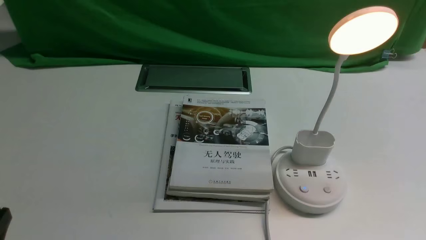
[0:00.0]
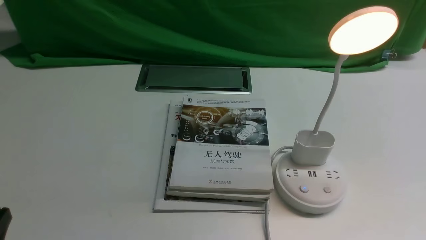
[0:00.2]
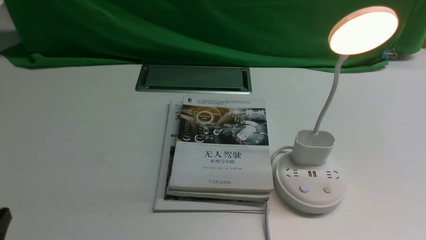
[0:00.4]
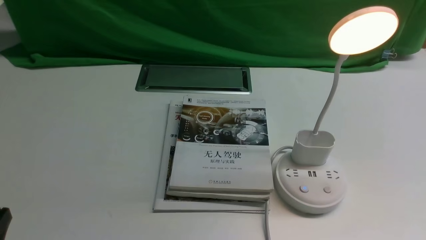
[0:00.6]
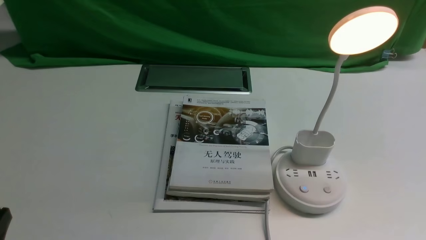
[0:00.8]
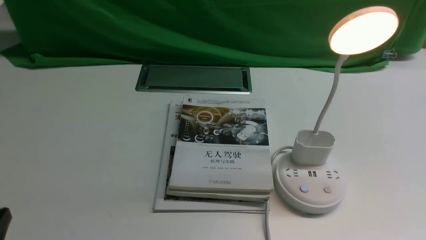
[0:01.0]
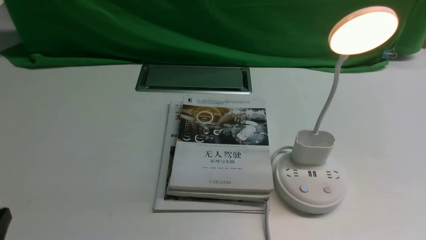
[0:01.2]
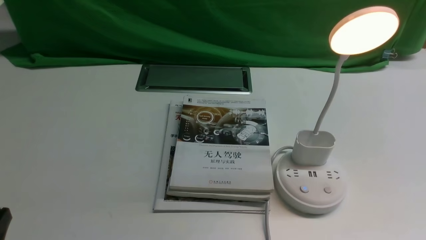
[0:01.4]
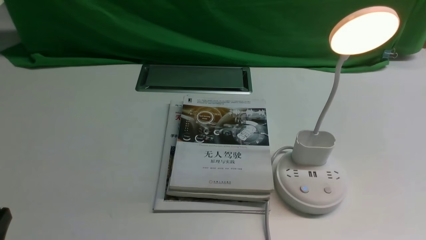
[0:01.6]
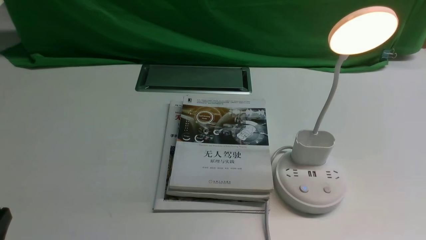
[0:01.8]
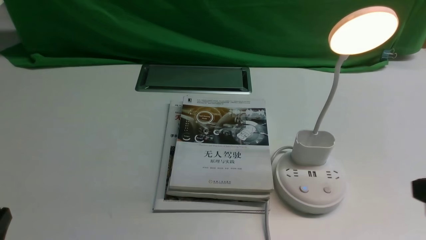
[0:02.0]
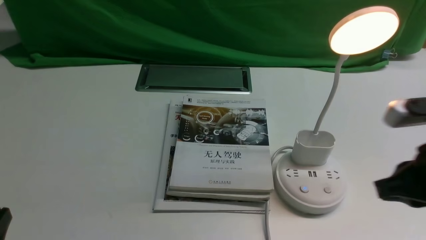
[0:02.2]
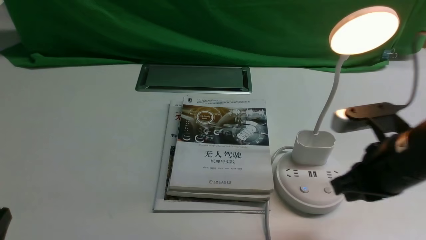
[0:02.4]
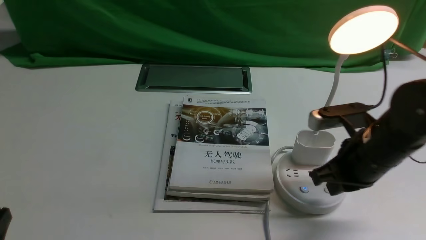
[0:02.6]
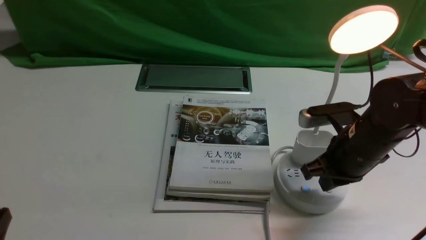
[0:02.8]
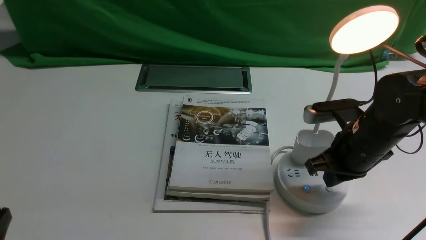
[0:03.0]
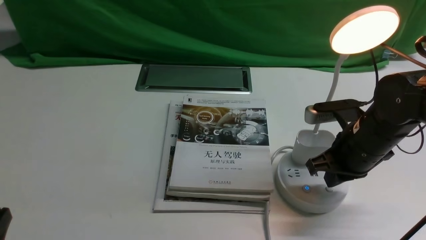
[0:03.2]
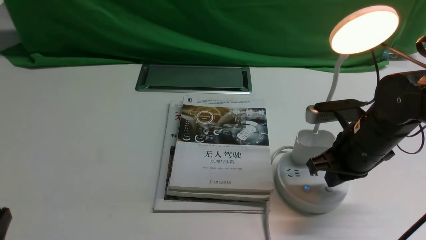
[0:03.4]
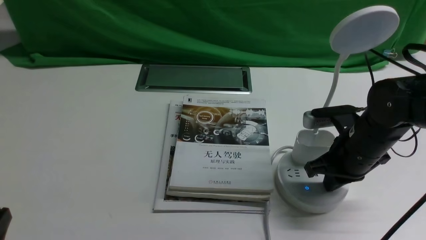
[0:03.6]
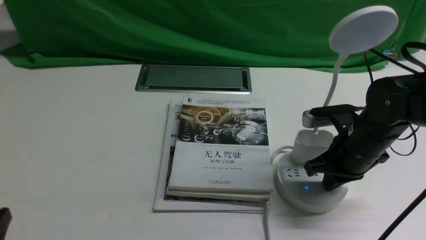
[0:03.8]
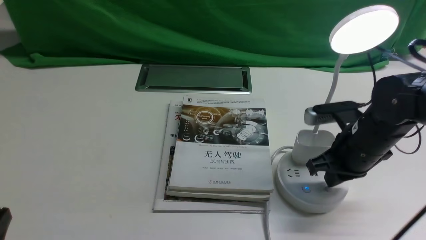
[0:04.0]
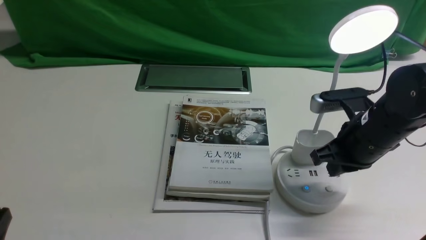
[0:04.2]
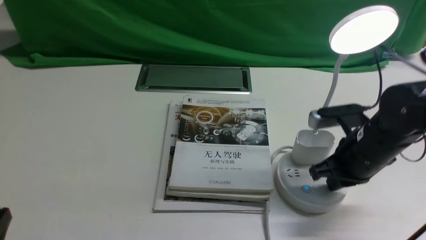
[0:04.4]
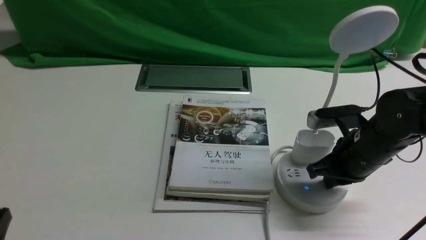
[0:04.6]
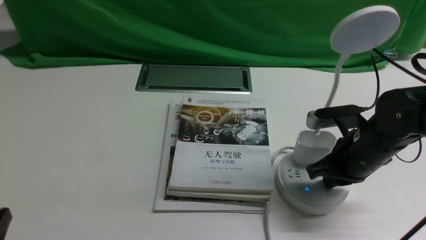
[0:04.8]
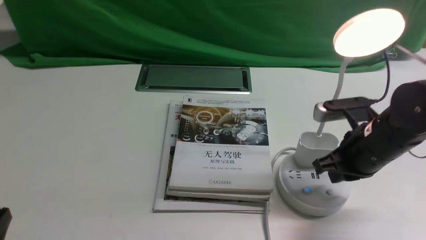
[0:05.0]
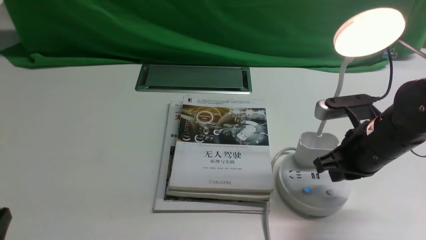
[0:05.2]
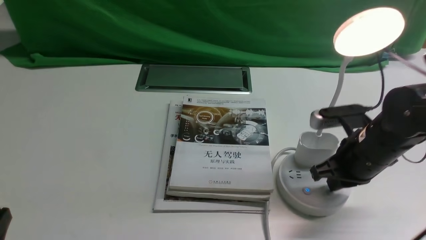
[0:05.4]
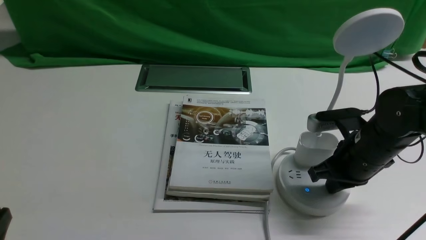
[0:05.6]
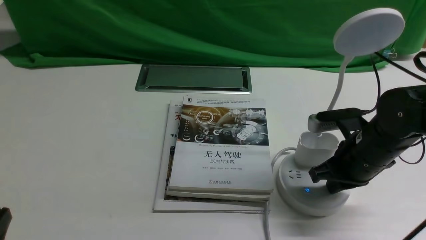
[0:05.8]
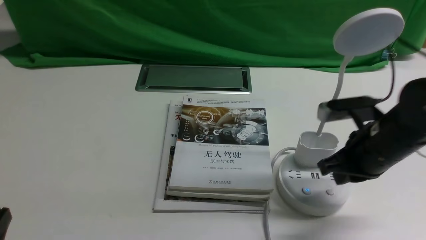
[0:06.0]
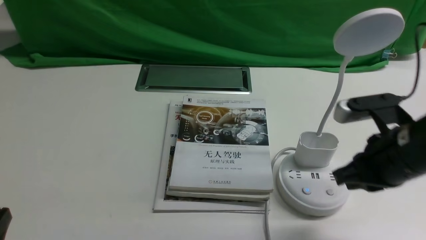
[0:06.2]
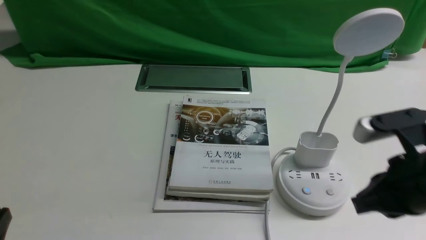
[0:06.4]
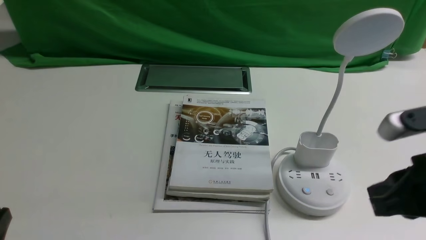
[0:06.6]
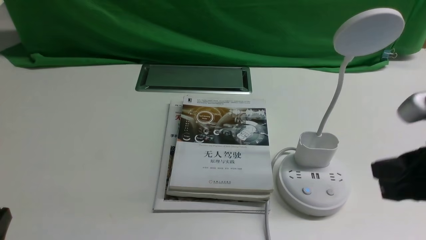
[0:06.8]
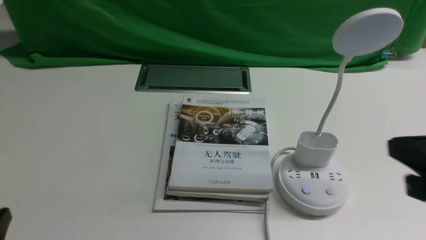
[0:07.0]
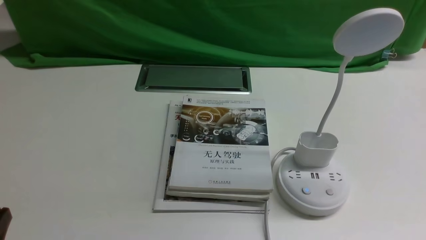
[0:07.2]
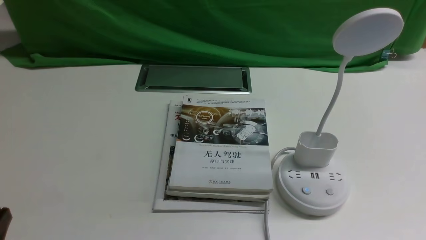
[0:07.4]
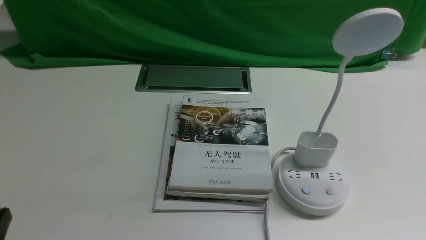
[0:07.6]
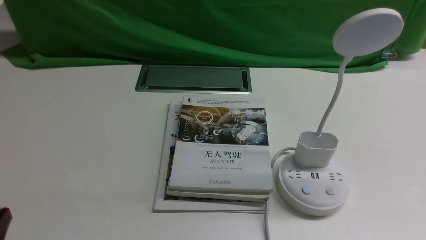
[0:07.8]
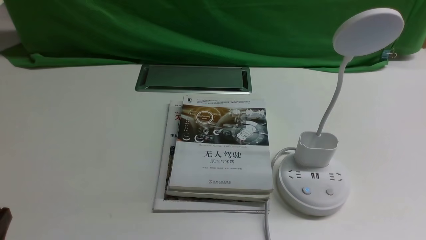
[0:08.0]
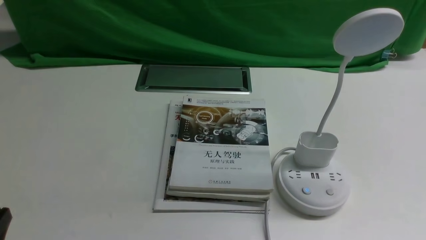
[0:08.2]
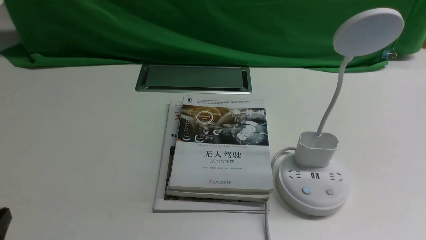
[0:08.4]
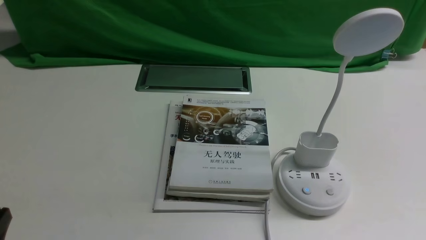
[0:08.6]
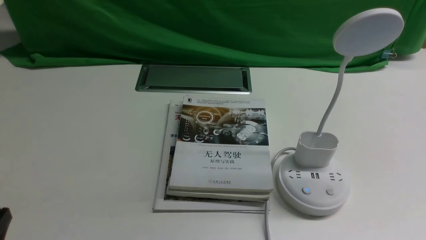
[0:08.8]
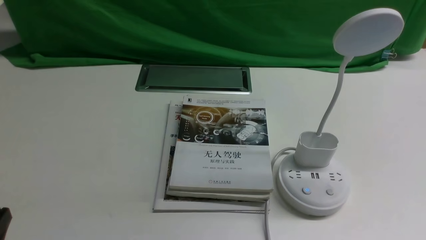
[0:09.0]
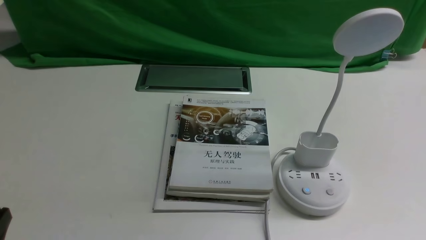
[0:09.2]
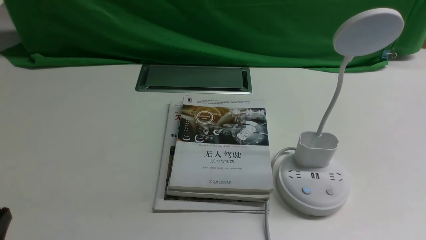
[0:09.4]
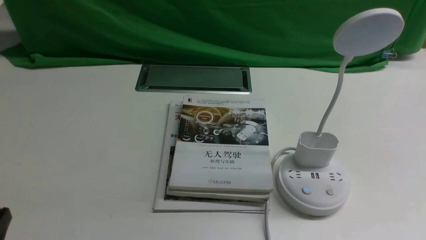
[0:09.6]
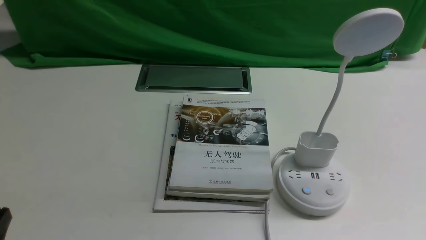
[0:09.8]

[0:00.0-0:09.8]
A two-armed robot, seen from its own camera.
Task of the whole recording: turn off the desk lamp on the white desktop by hand.
Step, 0:00.0 to 0:06.0: use the right arm to press the button switch on the lamp holder.
0:01.4 to 0:02.8: The right gripper goes about 25 cm forward and to the left, and closes its fingers.
0:02.8 to 0:05.6: The grippers move only a little.
0:05.6 to 0:07.0: The right gripper shifts approximately 20 cm backward and upward.
0:07.0 to 0:08.4: The right gripper travels downward, backward and to the right by some 15 cm.
0:08.4 to 0:09.8: Both grippers stay about where they are.

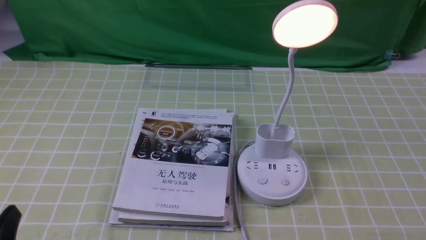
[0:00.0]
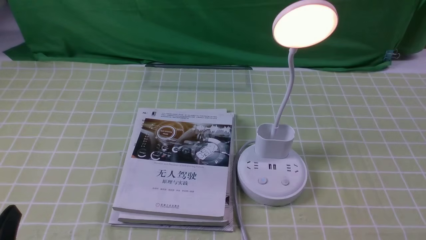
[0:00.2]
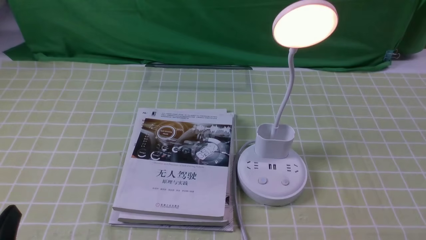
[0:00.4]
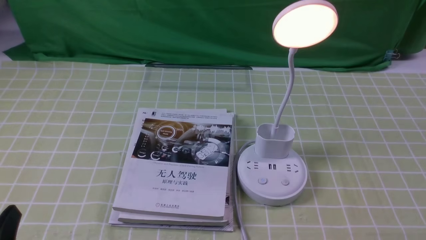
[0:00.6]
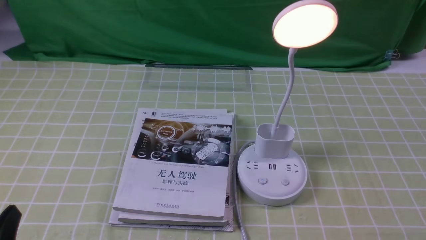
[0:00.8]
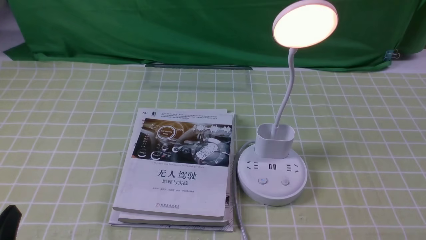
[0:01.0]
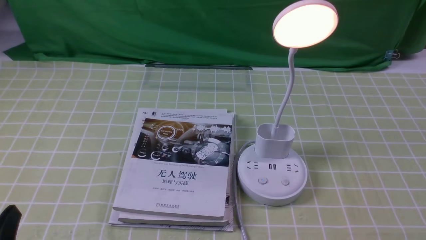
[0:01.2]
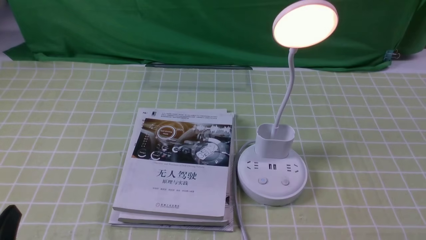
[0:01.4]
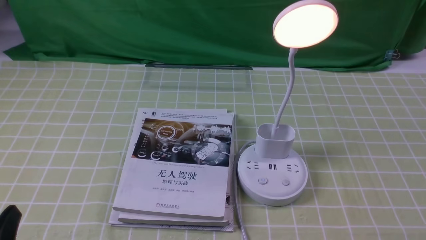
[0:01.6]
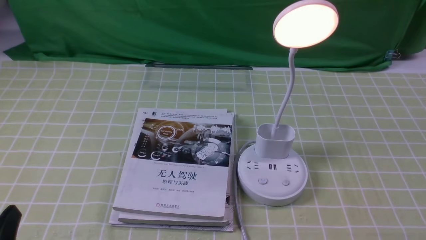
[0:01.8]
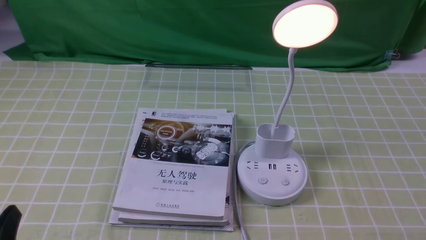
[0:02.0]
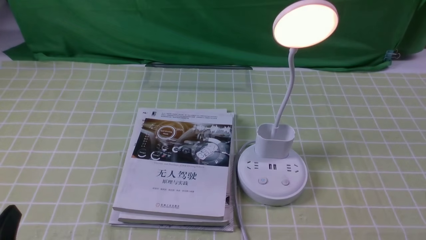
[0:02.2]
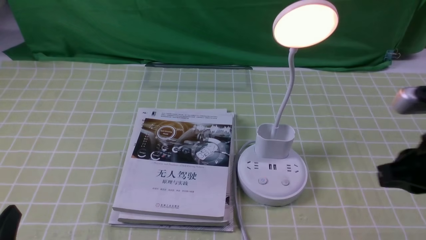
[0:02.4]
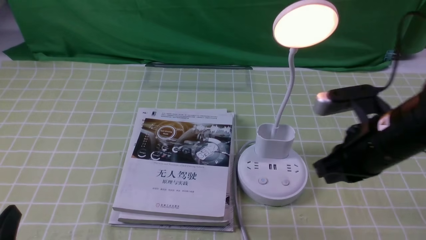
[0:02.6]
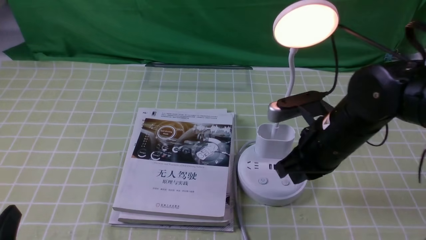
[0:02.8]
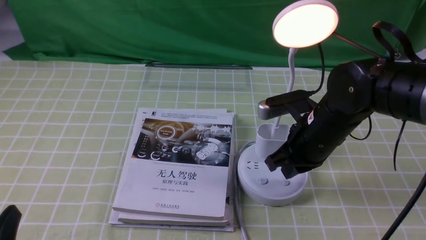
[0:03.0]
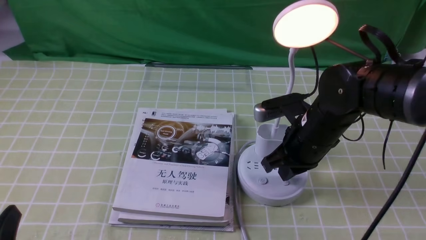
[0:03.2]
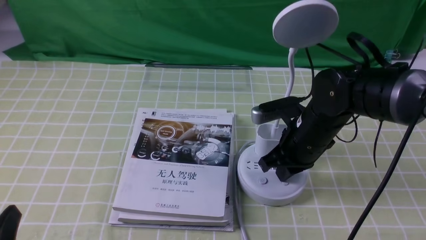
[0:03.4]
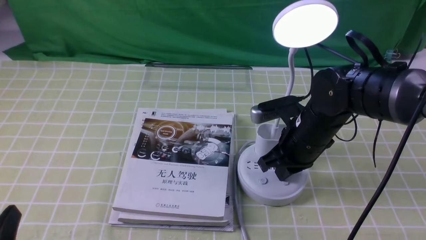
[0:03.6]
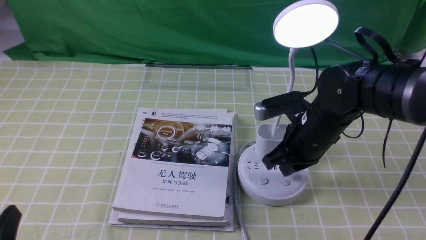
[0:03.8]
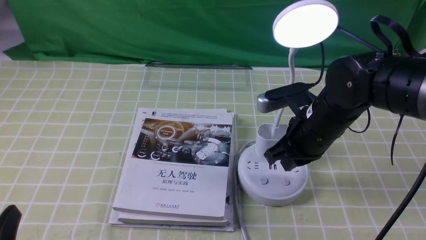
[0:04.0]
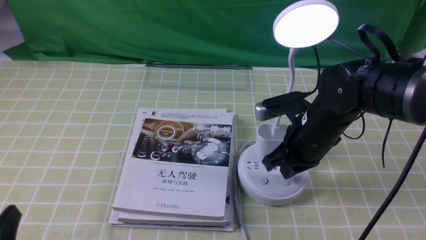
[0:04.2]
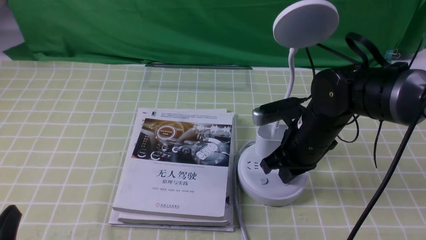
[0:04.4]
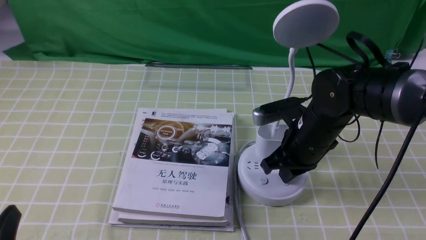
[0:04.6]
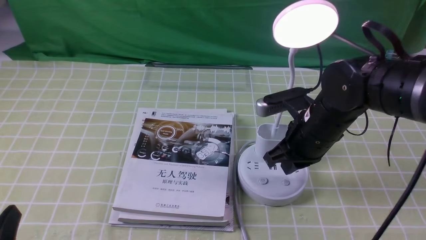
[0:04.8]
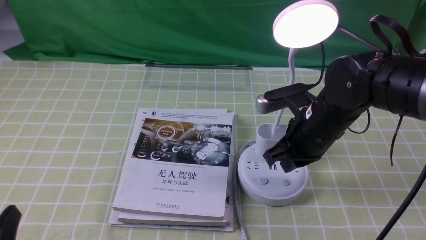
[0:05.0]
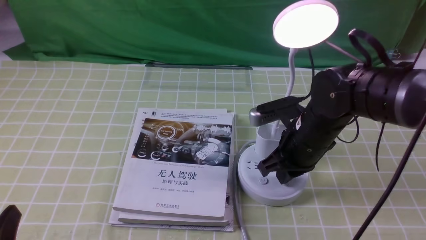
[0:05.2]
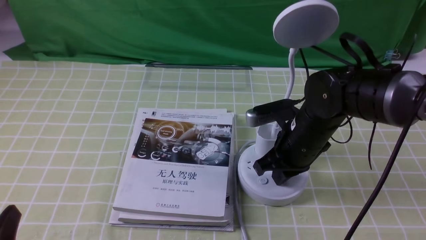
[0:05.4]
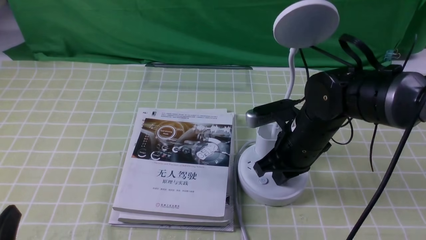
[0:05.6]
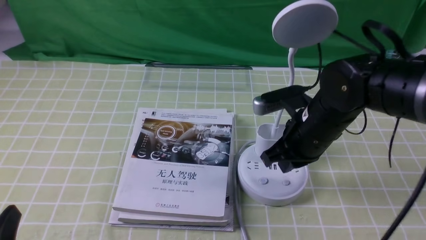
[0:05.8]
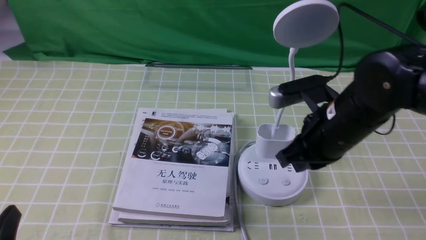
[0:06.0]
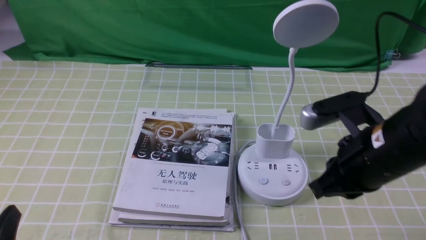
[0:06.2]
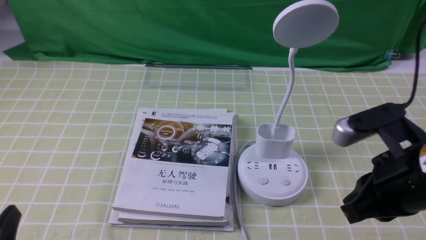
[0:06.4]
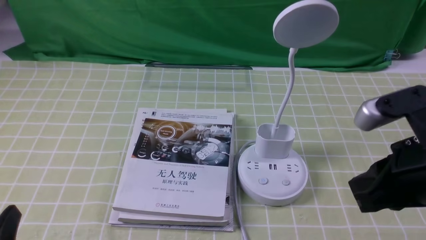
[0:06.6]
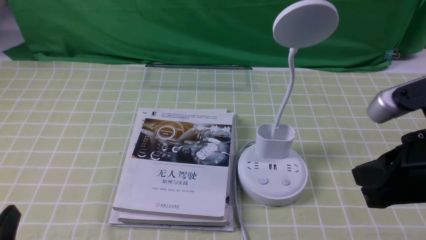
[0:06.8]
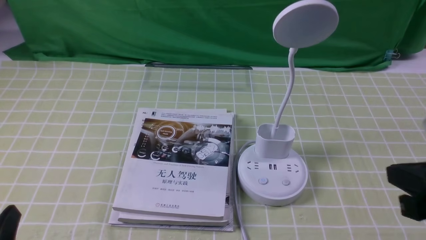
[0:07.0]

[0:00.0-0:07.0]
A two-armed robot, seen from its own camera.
Task of the whole recording: turn off the desk lamp on the green coffee tablecloth by hand.
Step, 0:00.0 to 0:05.8: use the right arm to press the button switch on the lamp holder.
0:01.4 to 0:02.8: The right gripper heads forward and to the left, covering some 30 cm, and closes its fingers.
0:02.8 to 0:04.2: The right gripper shifts by about 5 cm.
0:04.2 to 0:05.6: The grippers stay close to where they were, moving slightly.
0:05.6 to 0:07.0: The right gripper moves backward, to the right and upward, roughly 25 cm.
